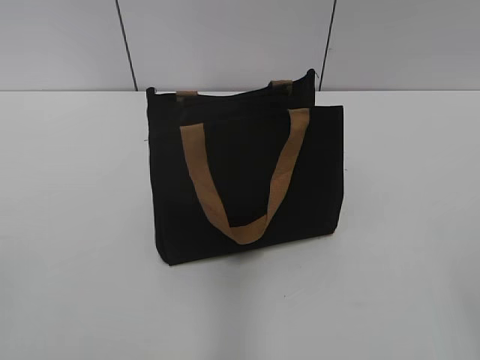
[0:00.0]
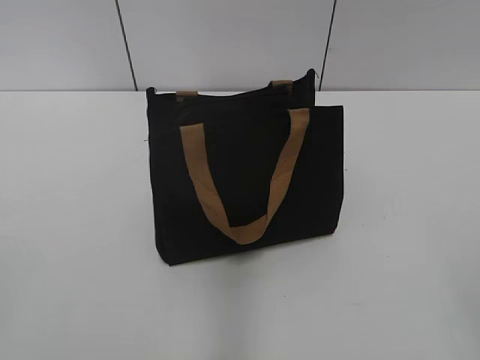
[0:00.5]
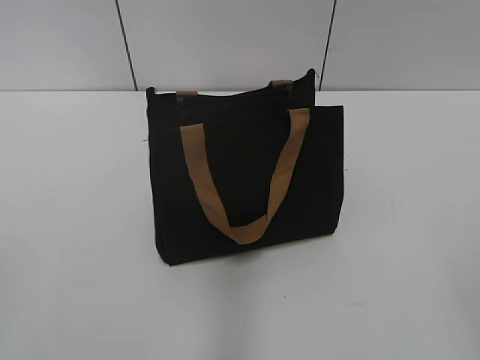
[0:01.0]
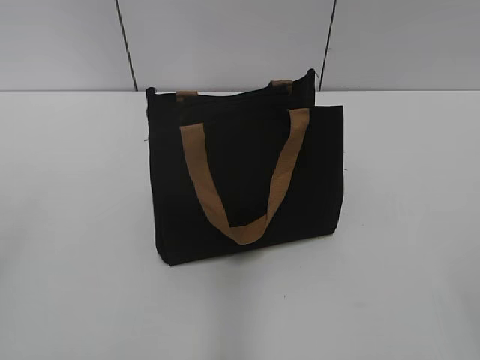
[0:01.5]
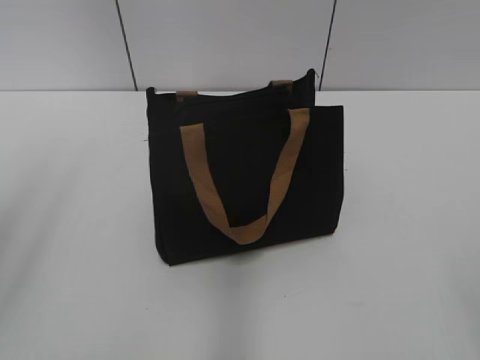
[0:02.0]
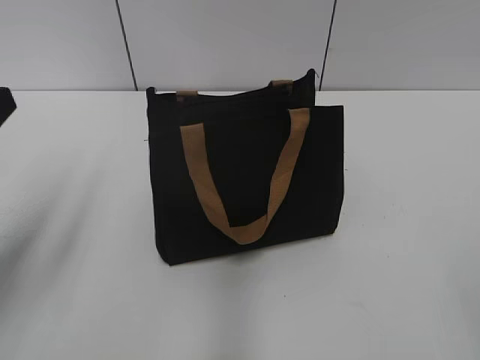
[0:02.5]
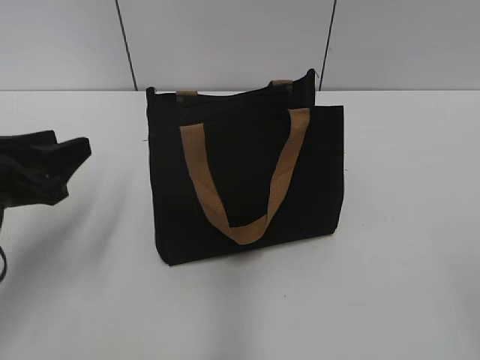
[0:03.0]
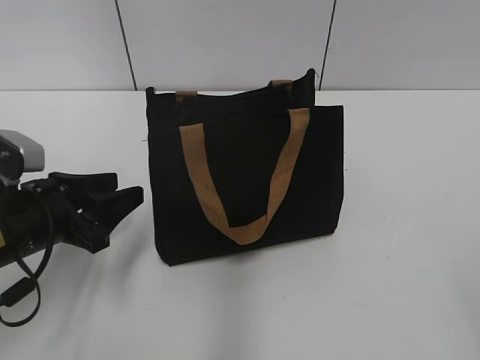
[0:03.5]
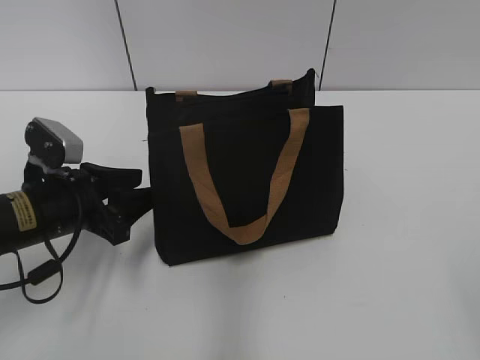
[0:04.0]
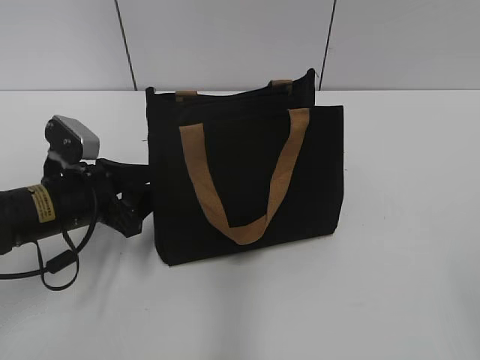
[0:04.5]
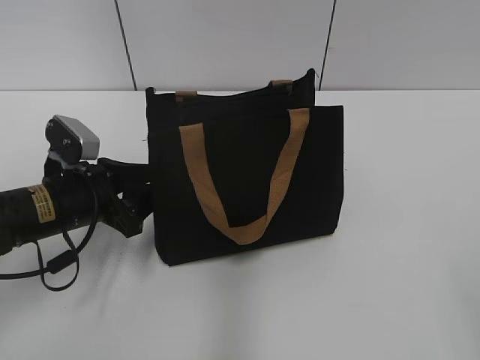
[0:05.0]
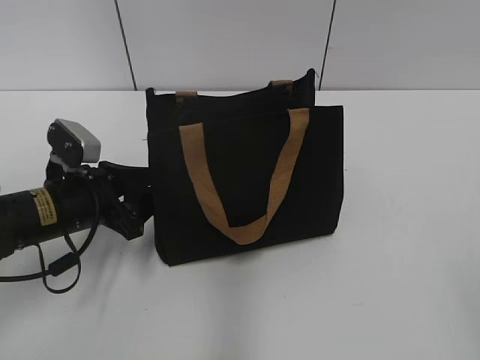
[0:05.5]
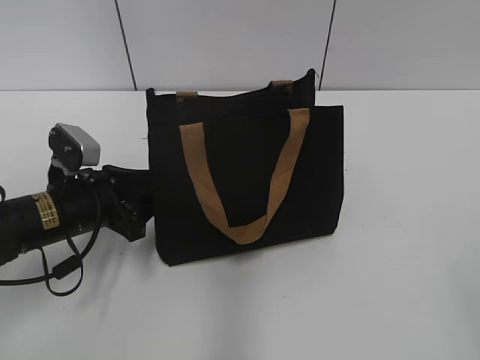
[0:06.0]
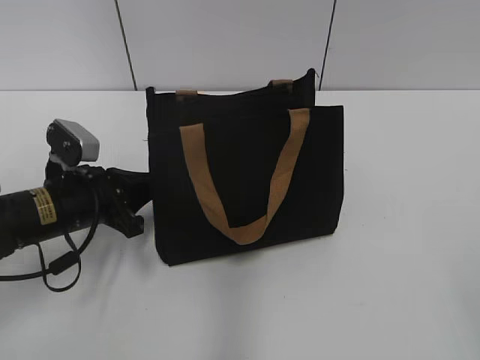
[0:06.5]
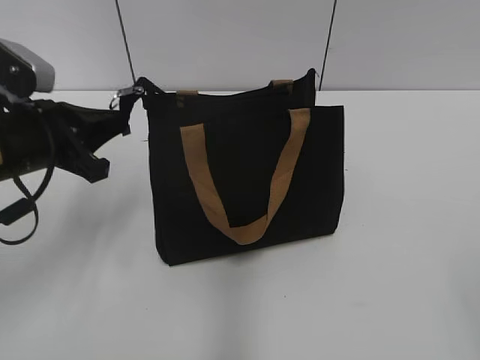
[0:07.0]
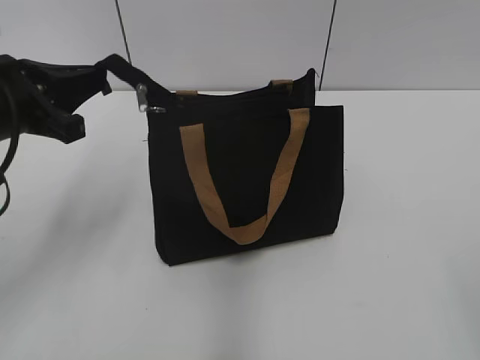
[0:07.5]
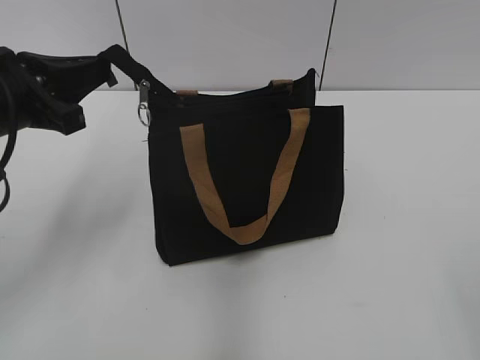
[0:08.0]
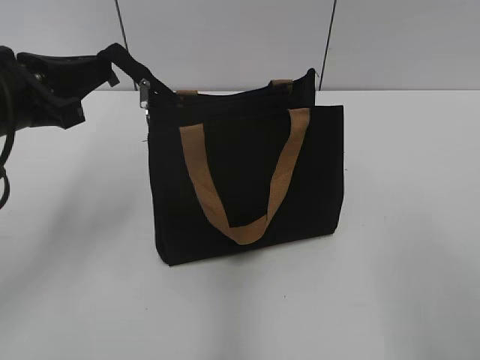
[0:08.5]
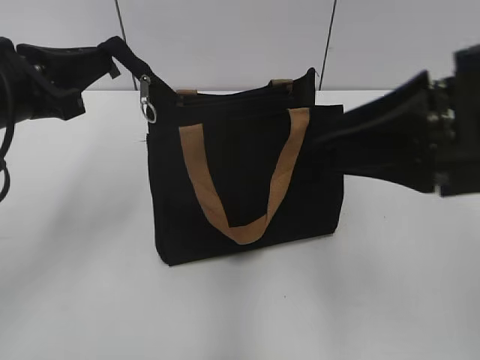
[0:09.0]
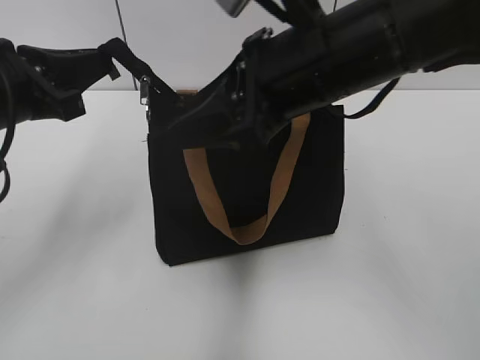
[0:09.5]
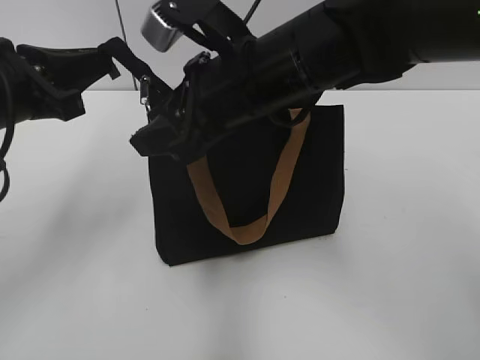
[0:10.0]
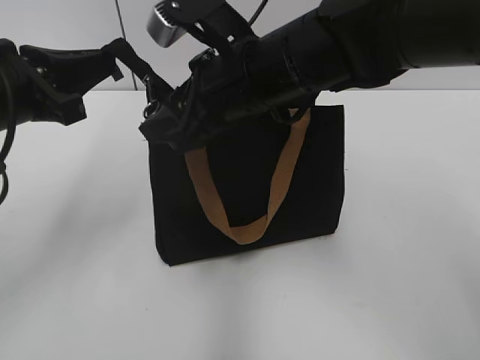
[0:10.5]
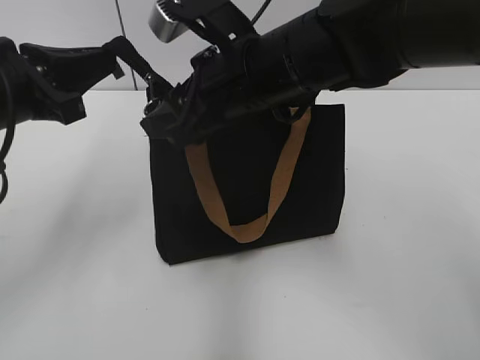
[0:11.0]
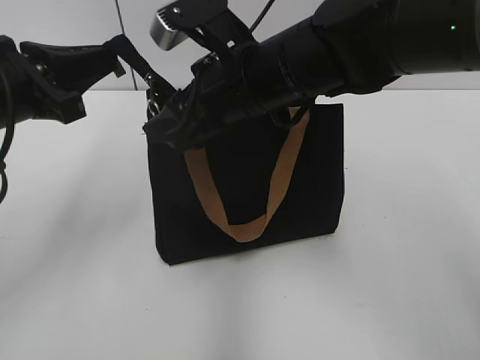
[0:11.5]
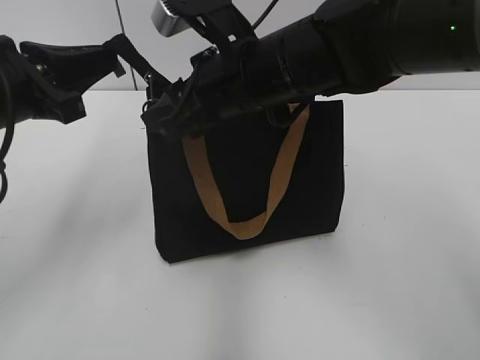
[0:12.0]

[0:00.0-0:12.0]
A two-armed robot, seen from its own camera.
0:02.0 to 0:04.0: The left gripper travels downward and forward by about 25 cm.
0:04.0 to 0:06.0: The grippers stay close to where they were, moving slightly.
0:06.0 to 0:08.0: The left gripper is displaced upward by approximately 15 cm, and closes up.
0:08.0 to 0:10.0: The right gripper heads forward and to the left, covering some 40 cm.
0:10.0 to 0:12.0: The grippers move only a little.

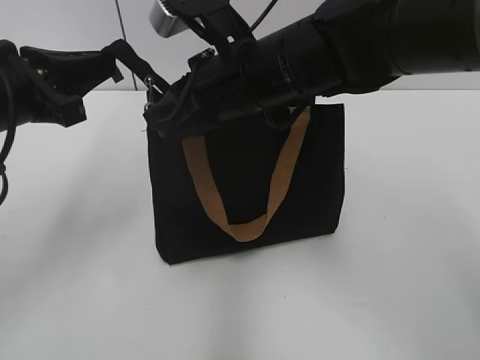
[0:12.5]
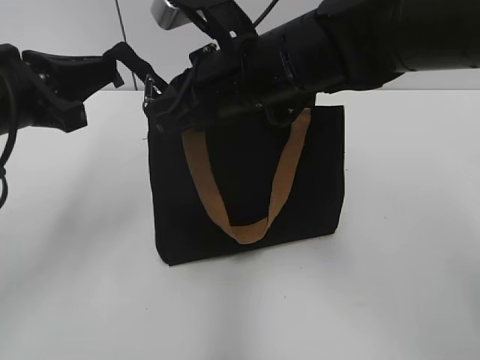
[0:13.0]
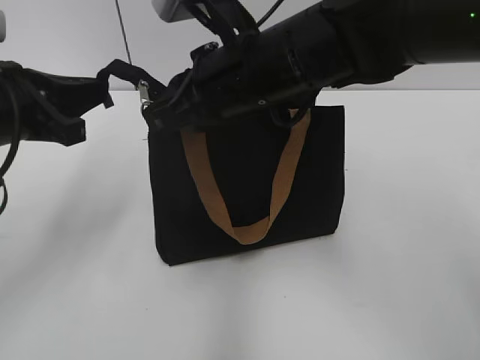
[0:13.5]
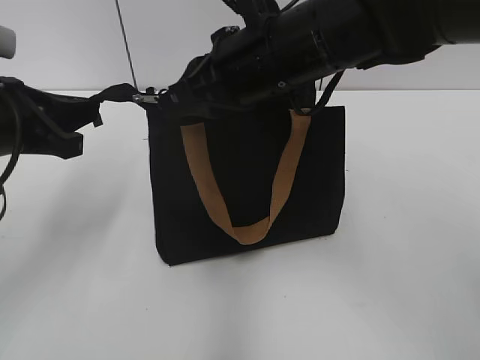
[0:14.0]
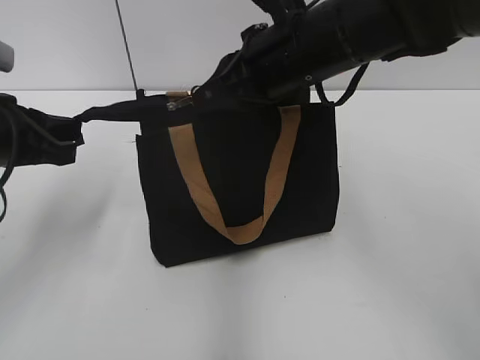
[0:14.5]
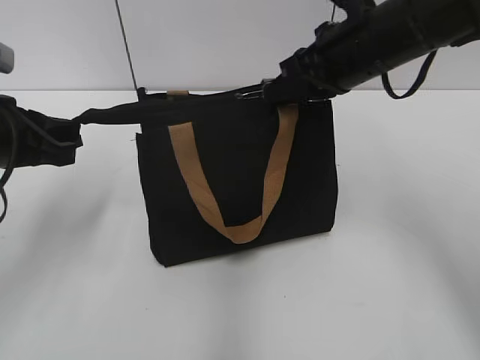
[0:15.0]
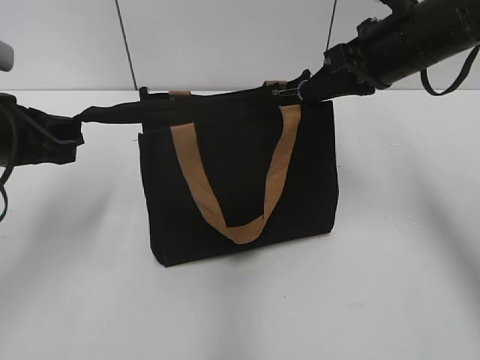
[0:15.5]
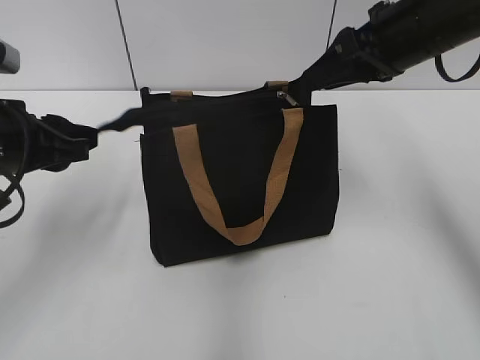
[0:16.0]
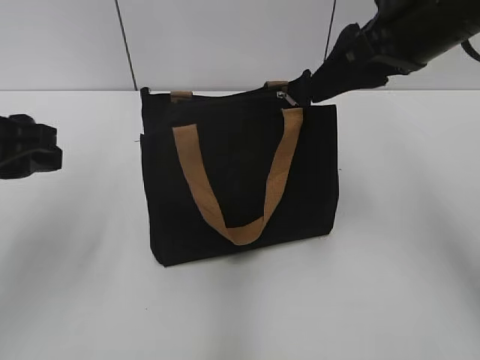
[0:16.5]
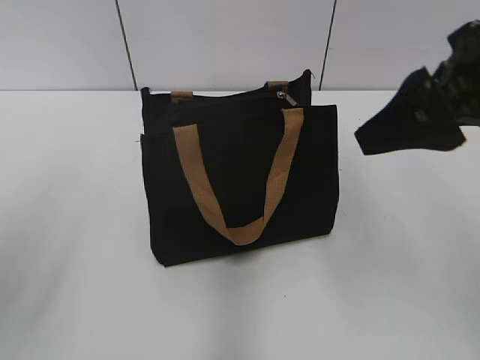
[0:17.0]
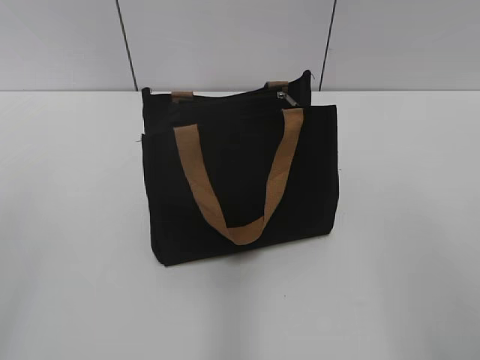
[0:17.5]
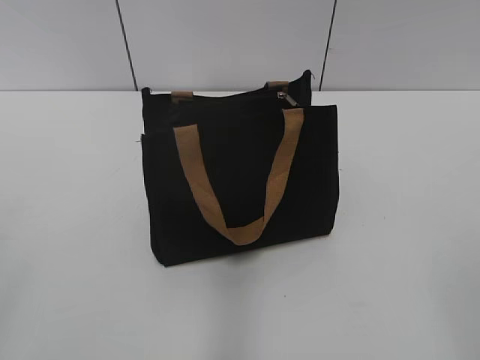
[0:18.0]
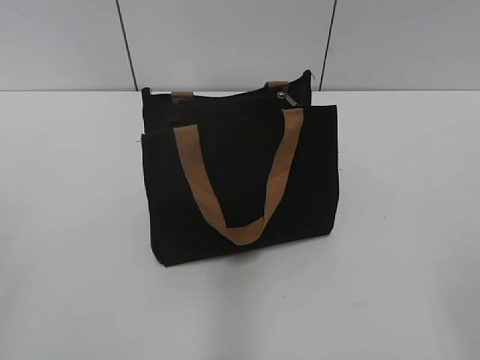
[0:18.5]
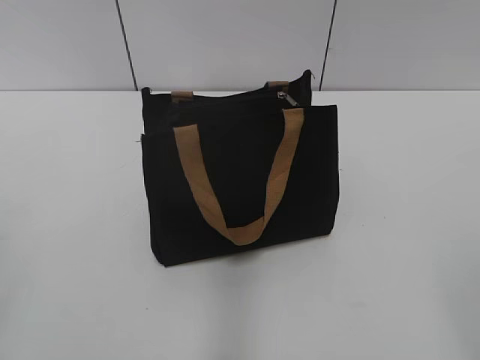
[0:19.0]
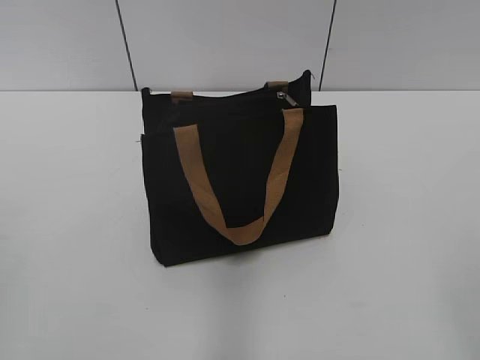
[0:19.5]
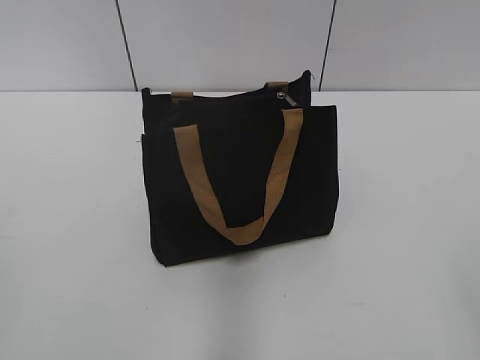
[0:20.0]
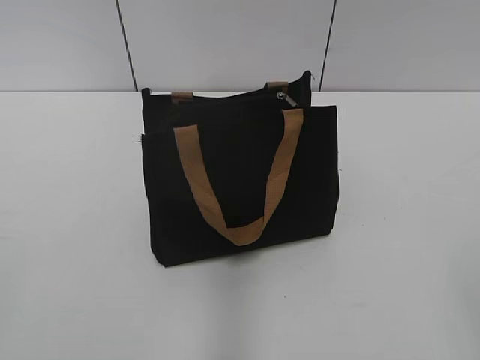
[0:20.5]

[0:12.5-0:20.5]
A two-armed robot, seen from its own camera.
Step, 0:12.5 to 0:15.5: Zip up the bag with your right hand.
0:12.5 to 0:14.5: The right gripper moves some 5 cm.
0:14.5 to 0:16.5: The right gripper travels to the right by some 10 cm, and opens. The left gripper shifts by roughly 5 cm, and opens up.
0:16.5 to 0:18.5: The right gripper travels backward by about 30 cm. Meanwhile the left gripper moves backward and to the left, approximately 25 cm.
